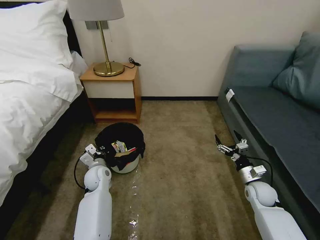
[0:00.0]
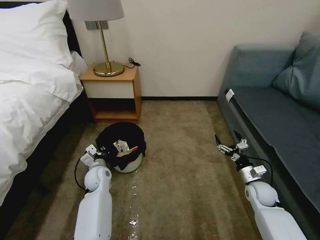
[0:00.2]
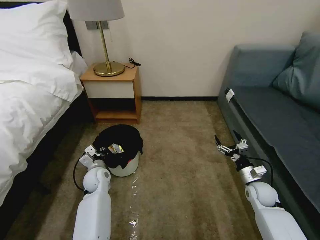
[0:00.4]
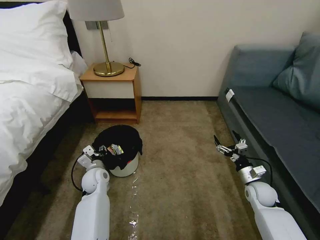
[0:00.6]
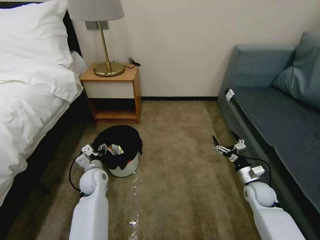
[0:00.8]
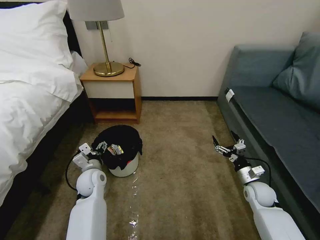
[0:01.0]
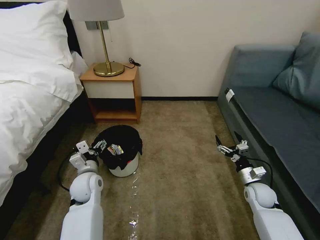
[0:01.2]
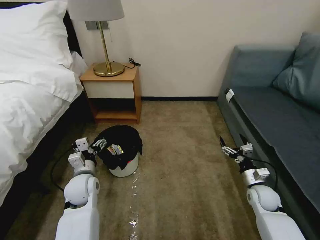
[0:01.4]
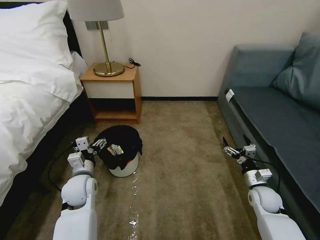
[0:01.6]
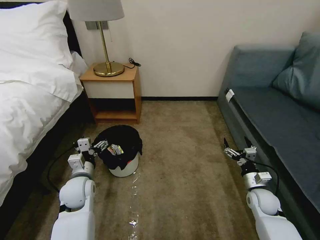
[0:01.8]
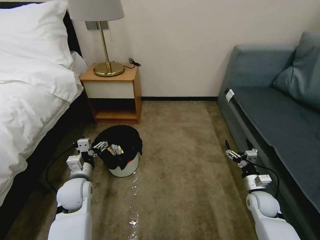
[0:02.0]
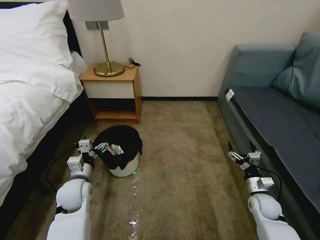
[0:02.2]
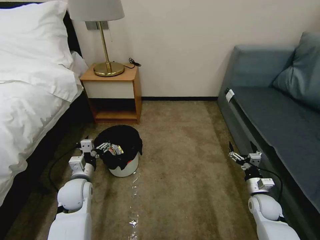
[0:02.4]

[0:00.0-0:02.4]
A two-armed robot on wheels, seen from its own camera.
Task of the whole recording: Pick up the trash bin, then pick up the garbage on the floor and place it into the trash bin.
0.0 to 1.2 s: The left gripper shifts about 10 cm backward and upward, and opens.

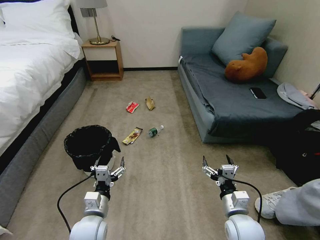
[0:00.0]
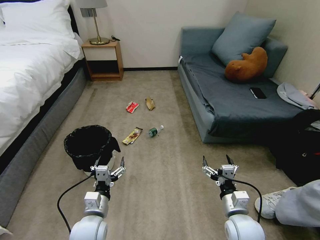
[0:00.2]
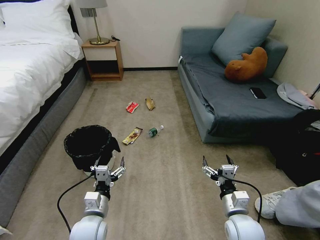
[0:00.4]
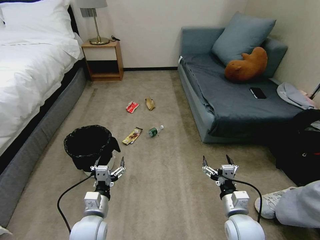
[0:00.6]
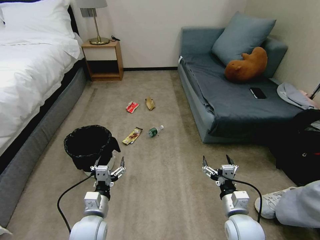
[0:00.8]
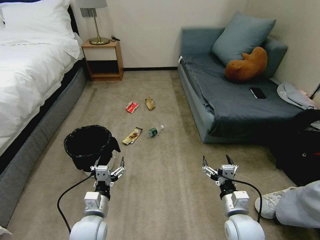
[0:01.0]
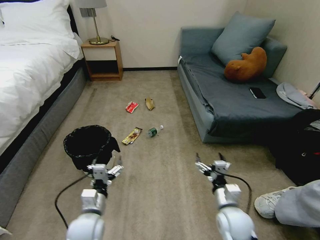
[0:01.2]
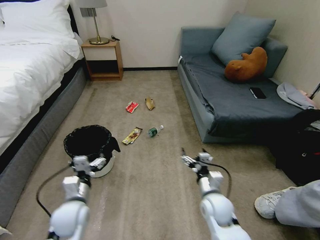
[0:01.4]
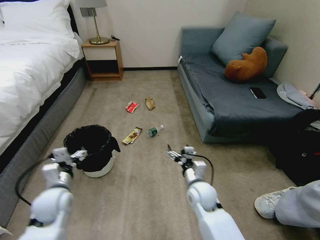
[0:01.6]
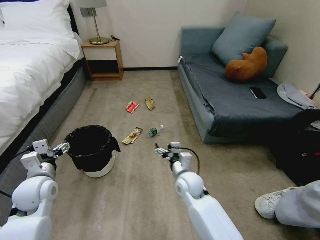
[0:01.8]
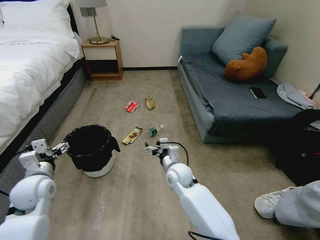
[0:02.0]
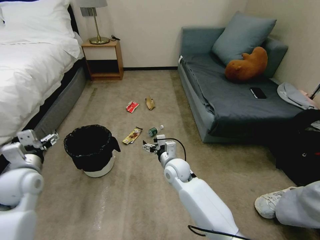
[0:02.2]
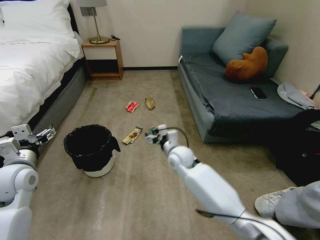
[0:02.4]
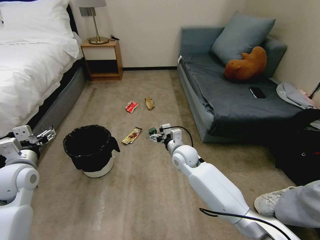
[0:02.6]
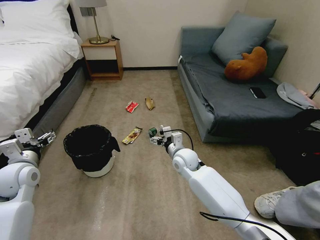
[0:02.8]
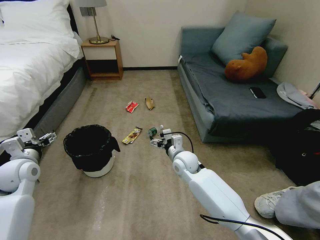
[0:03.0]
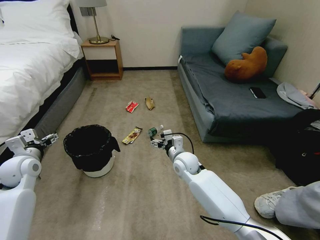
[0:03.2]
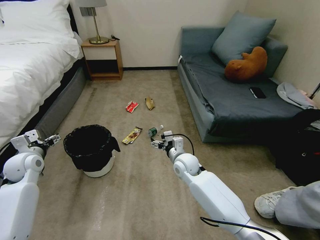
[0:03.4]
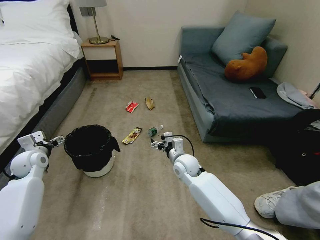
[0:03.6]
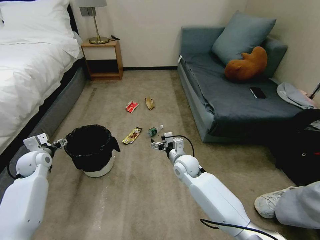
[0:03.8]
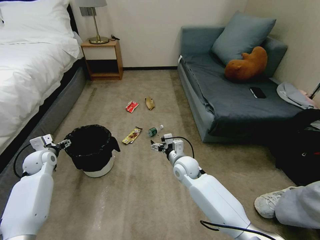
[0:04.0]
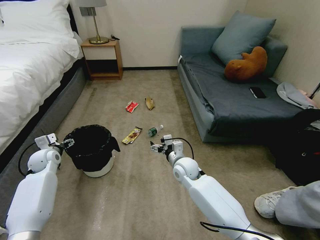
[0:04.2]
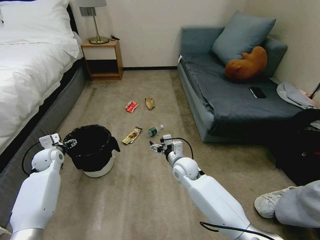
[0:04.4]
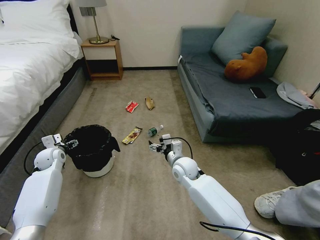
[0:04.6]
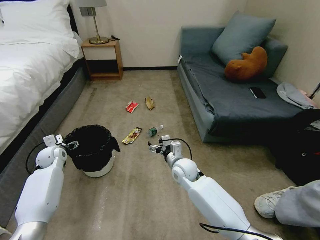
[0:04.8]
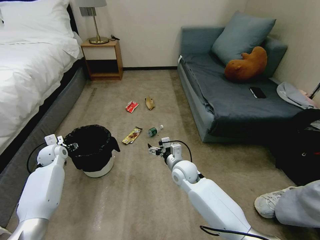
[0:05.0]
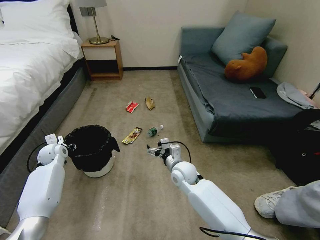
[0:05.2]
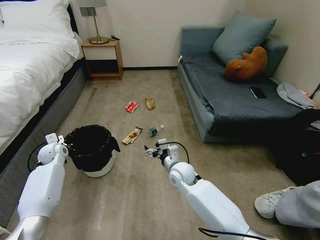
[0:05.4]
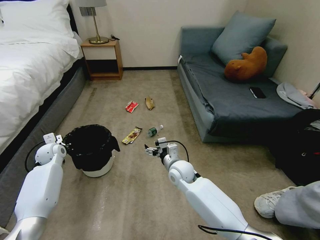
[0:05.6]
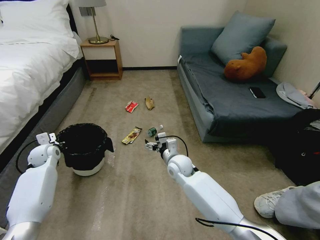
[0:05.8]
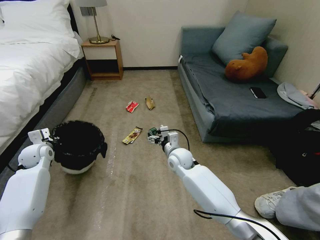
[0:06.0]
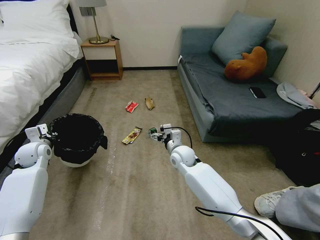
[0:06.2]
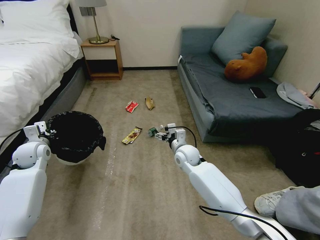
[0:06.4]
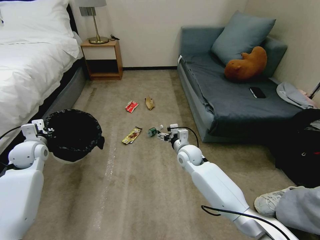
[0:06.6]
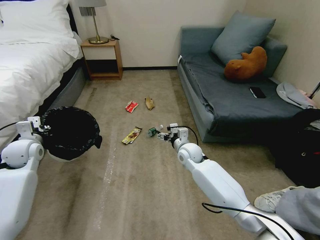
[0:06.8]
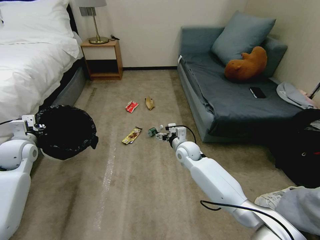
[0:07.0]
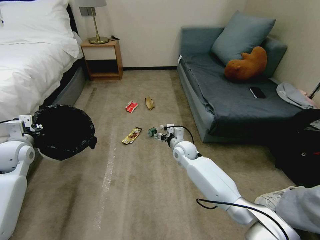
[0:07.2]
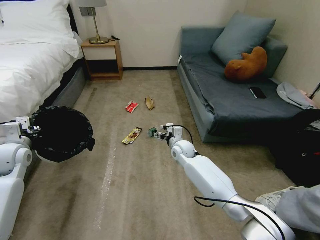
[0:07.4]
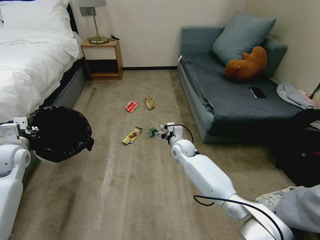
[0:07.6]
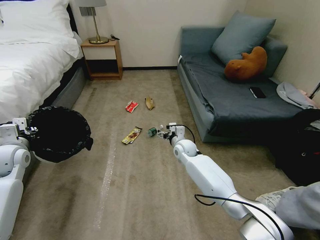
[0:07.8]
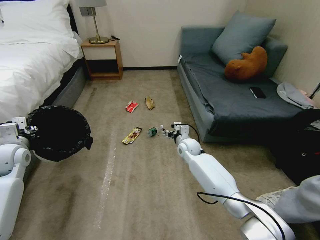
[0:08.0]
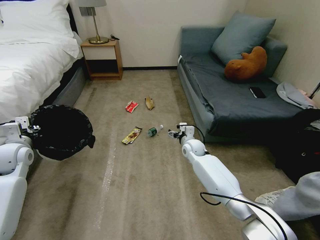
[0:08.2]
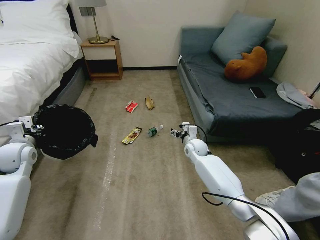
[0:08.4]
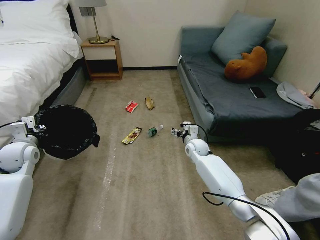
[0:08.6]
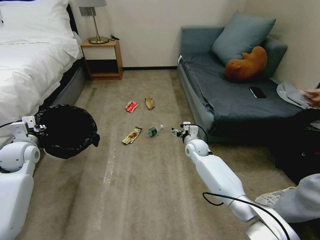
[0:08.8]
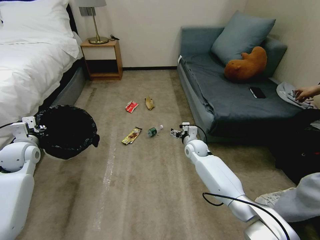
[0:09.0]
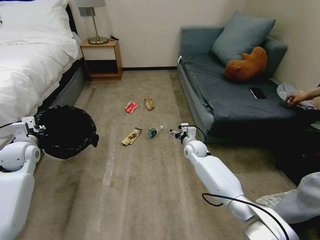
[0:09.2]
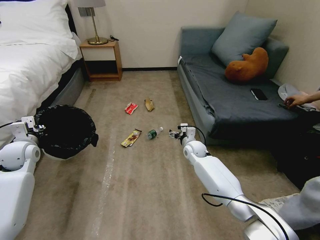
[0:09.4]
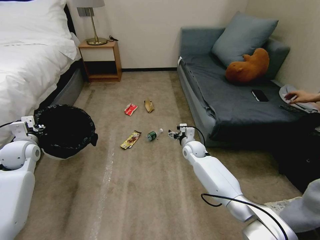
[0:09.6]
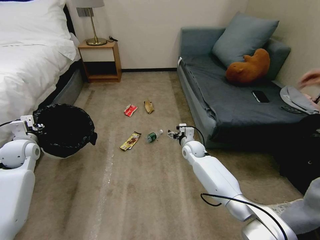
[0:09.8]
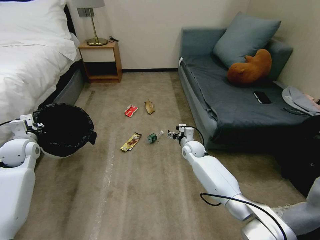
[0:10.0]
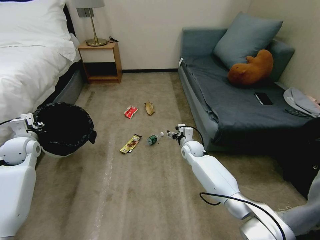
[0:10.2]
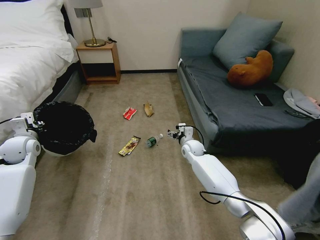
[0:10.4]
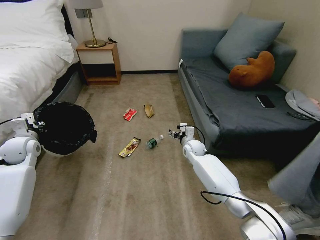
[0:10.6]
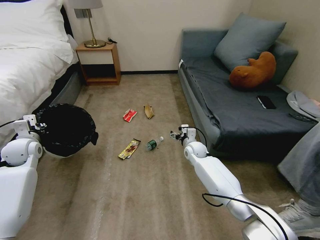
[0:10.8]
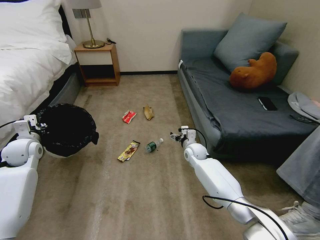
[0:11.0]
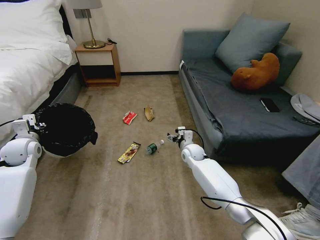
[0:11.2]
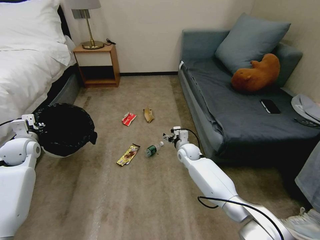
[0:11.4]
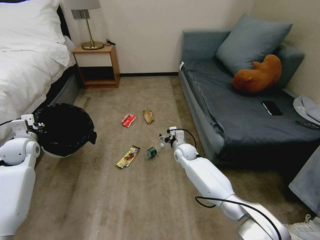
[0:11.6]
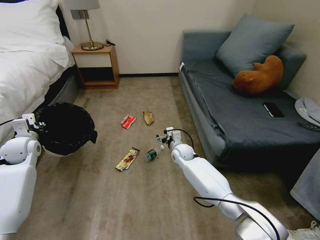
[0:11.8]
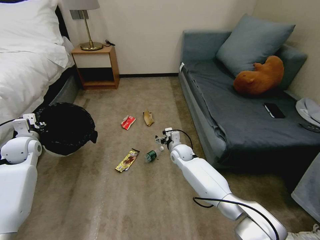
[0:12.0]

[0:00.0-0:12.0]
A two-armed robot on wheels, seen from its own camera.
Task of the whole recording: Pick up the trash bin, then pick up the garbage on the floor and place it into the trash bin.
1.6 to 3.0 s: The right gripper is displaced forward by some 10 cm; the left gripper is displaced to the left, upward and forward by some 15 cm.
3.0 to 4.4 s: The left gripper heads forward and downward, covering approximately 15 cm.
4.4 to 6.0 s: The left gripper closes its fingers.
6.0 to 7.6 s: The left gripper goes approximately 15 cm upward and backward. The right gripper goes about 5 cm forward.
7.6 to 9.0 s: The right gripper travels to the right by some 5 cm.
10.4 to 12.0 s: The right gripper heads to the left, covering about 5 cm.

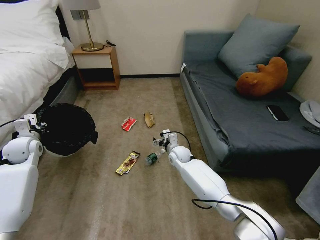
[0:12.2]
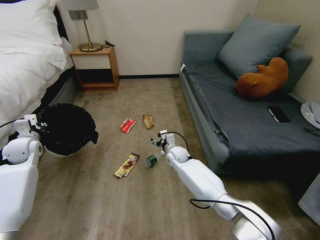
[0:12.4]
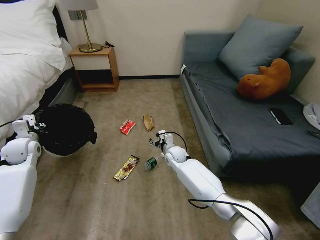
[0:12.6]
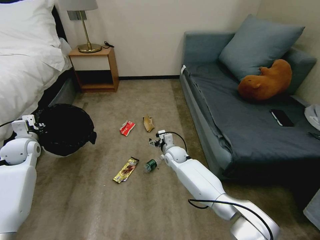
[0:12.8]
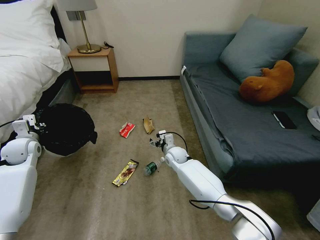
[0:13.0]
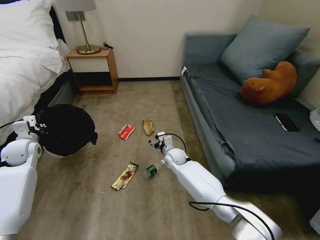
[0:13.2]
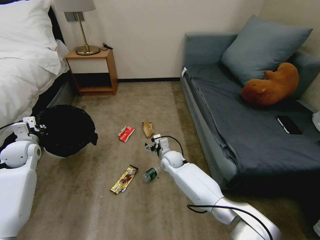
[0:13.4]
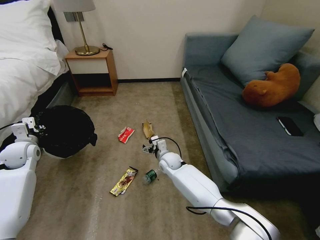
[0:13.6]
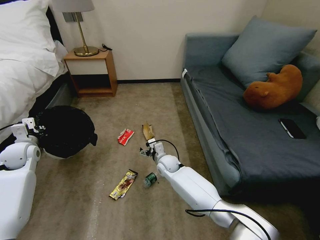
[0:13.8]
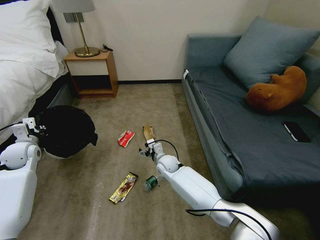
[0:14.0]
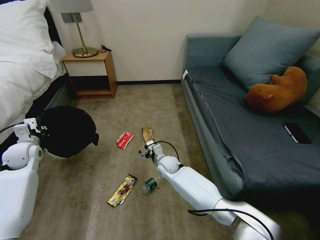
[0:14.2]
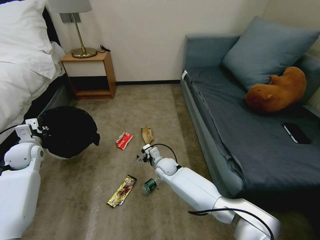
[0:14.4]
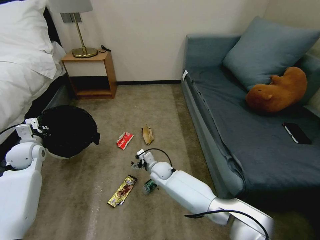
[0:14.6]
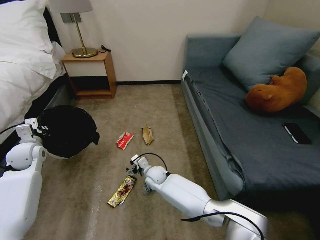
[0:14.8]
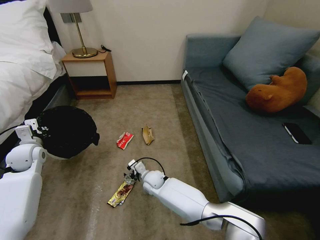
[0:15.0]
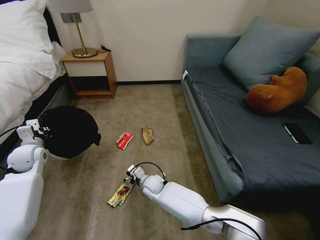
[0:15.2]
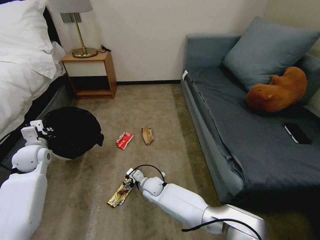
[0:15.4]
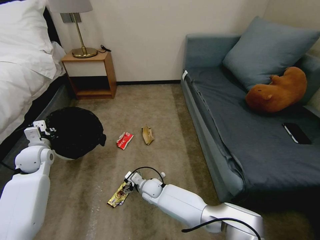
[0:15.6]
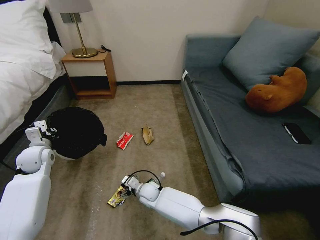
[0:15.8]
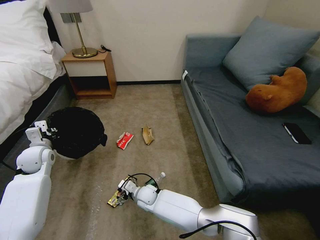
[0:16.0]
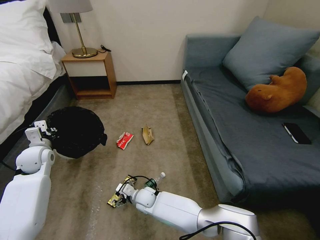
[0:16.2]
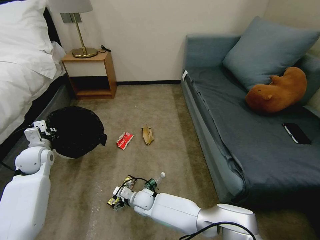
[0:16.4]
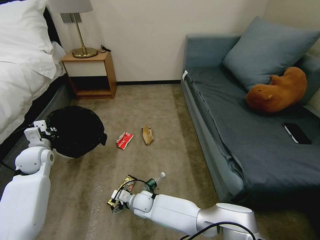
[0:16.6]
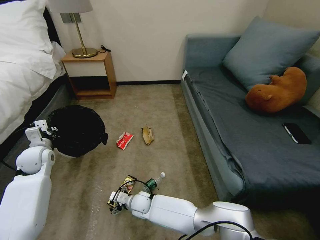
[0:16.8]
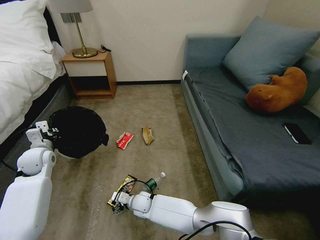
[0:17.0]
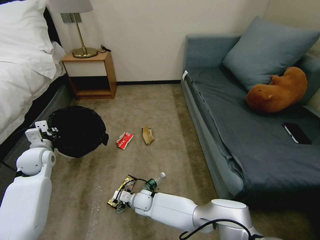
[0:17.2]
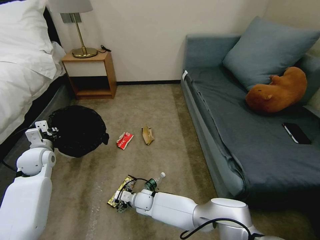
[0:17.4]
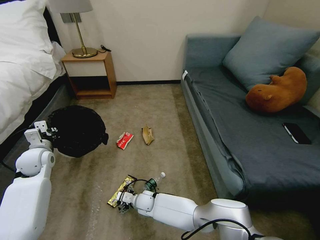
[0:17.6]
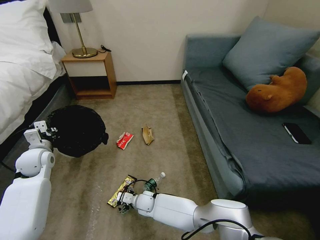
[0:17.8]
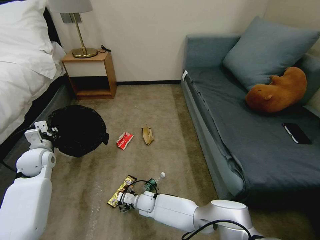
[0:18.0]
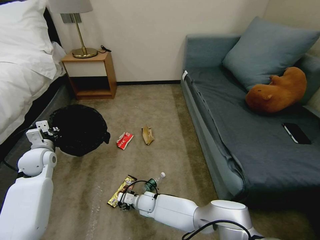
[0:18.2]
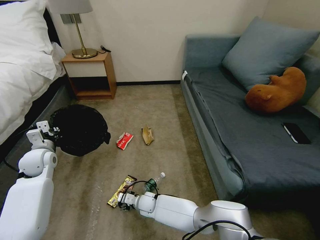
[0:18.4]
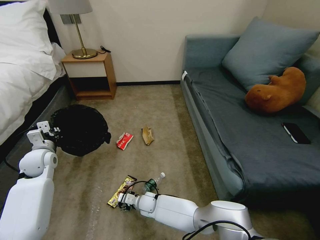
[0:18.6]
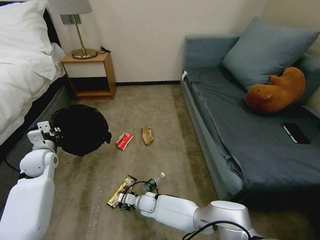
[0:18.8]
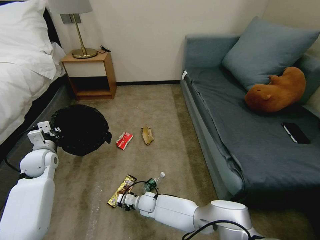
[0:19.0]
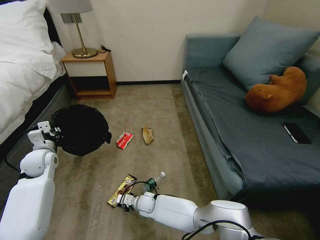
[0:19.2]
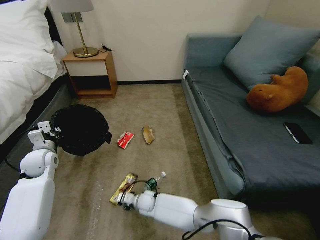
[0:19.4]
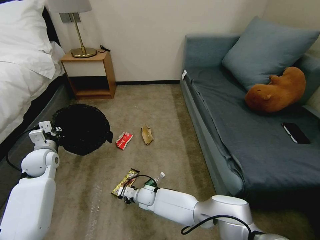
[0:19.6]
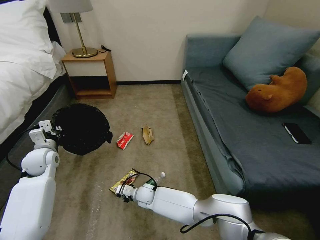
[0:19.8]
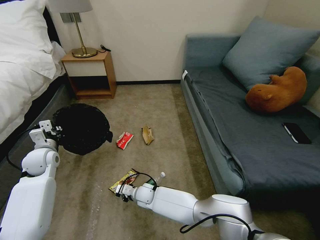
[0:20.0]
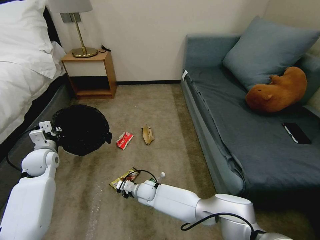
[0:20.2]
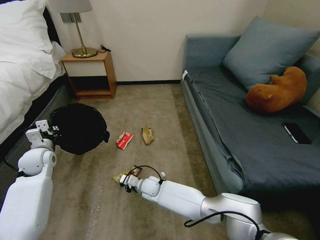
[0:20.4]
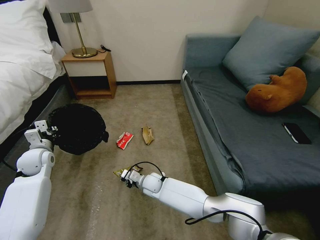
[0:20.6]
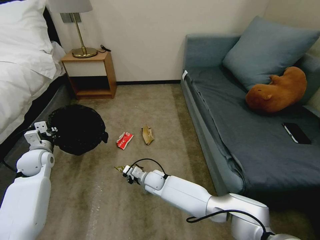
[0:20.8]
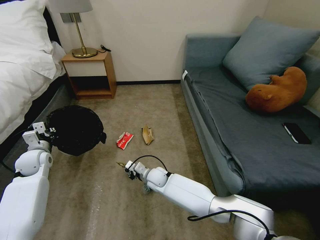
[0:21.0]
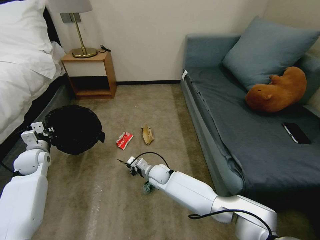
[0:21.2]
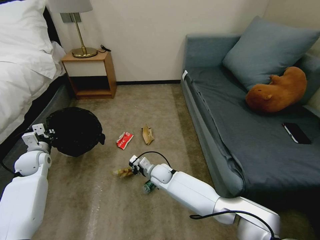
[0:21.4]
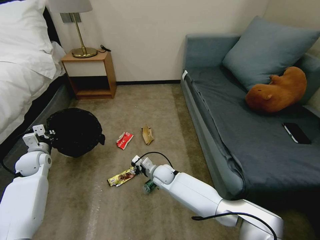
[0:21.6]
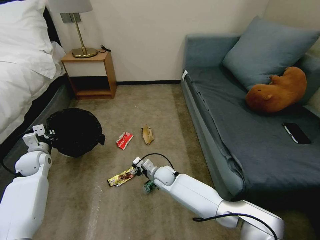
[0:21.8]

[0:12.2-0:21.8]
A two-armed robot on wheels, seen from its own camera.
Task of the whole recording: Pick up the trash bin, then pick up the garbage on the floor and place it into the trash bin.
12.2 to 13.8 s: The right gripper is displaced to the left by about 5 cm.
13.8 to 15.4 s: The right gripper heads backward, downward and to the left, covering roughly 10 cm.
15.4 to 17.0 s: The right gripper travels backward by about 5 cm.
17.0 to 18.6 s: The grippers move only a little.
18.6 to 20.2 s: The right gripper ends up some 5 cm from where it was, and closes.
20.2 to 21.8 s: The right gripper moves to the right and upward, about 10 cm; the left gripper heads to the left, covering some 5 cm.
